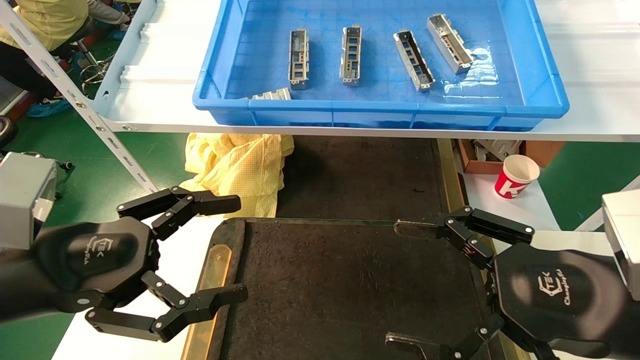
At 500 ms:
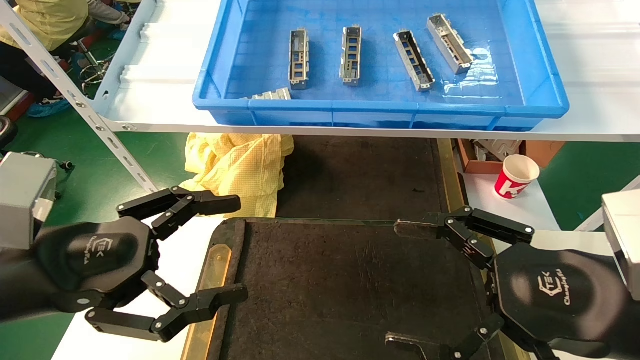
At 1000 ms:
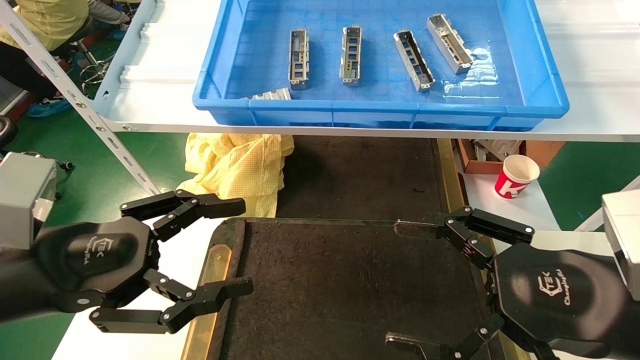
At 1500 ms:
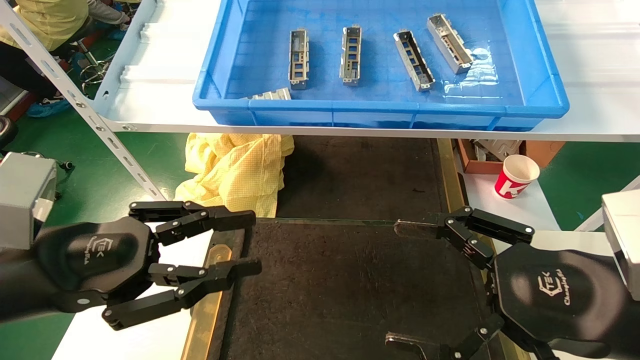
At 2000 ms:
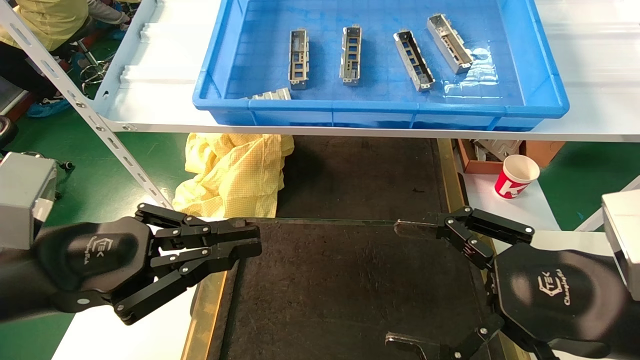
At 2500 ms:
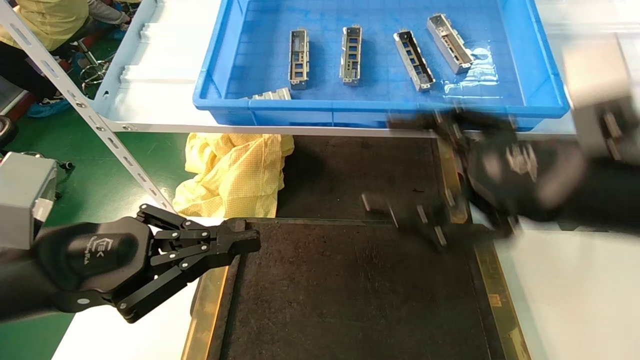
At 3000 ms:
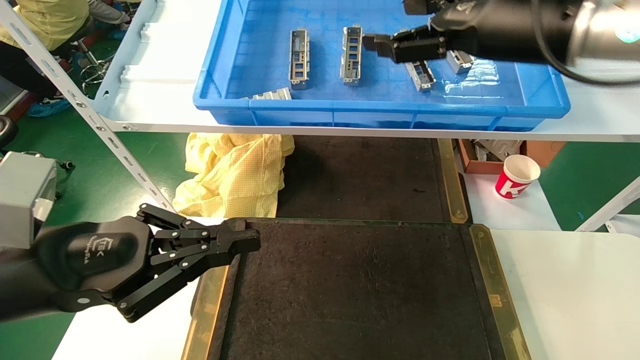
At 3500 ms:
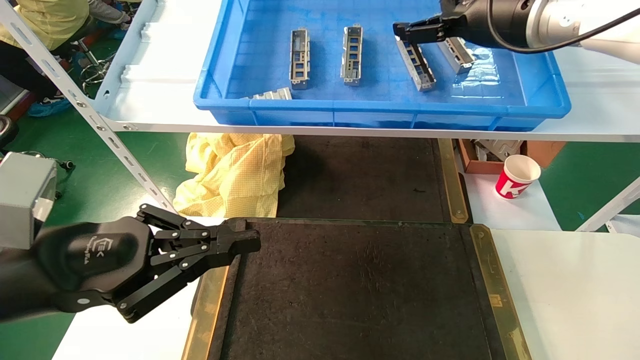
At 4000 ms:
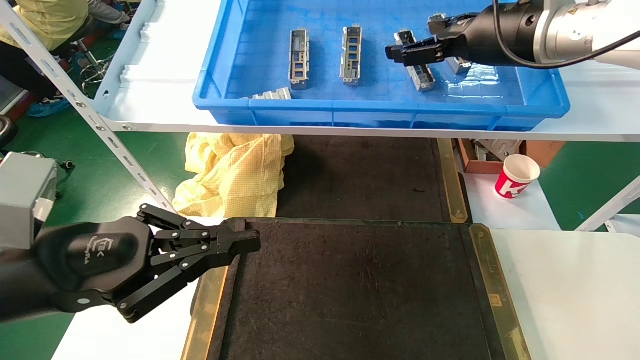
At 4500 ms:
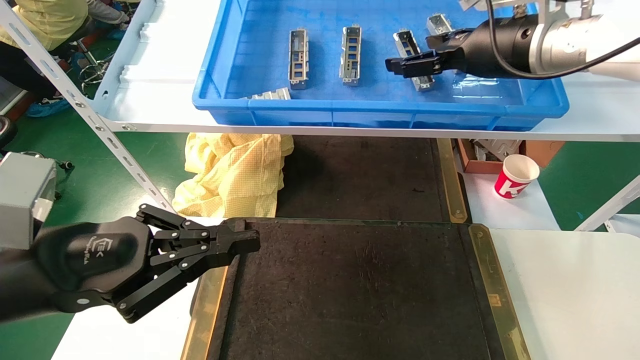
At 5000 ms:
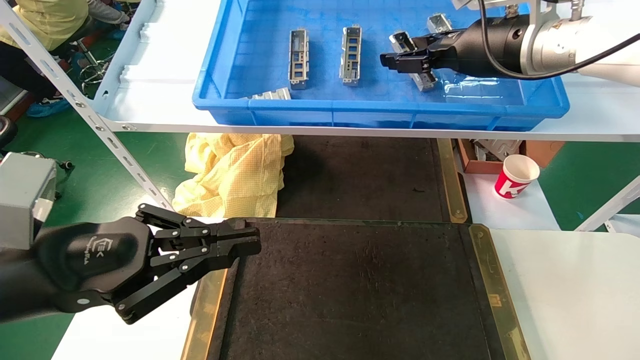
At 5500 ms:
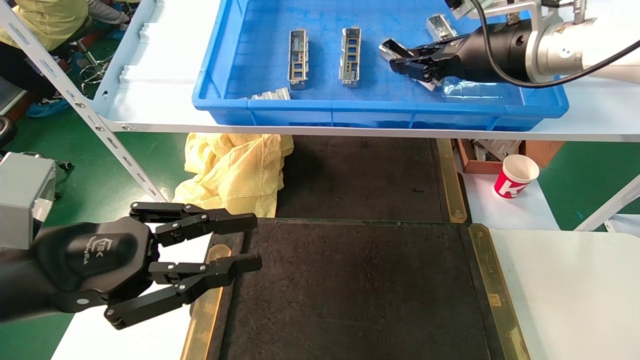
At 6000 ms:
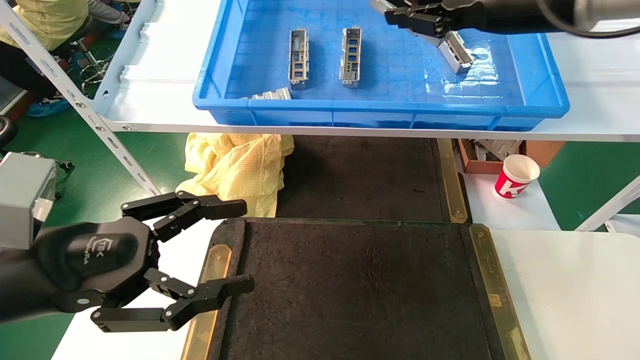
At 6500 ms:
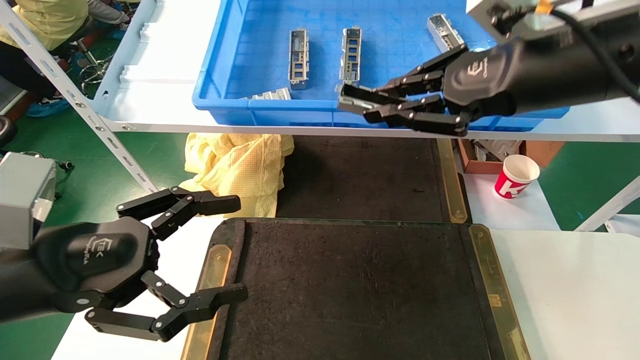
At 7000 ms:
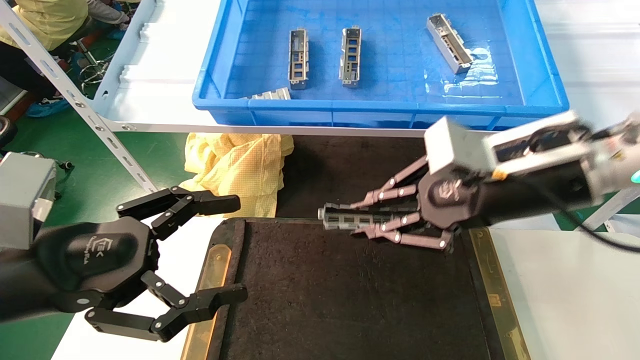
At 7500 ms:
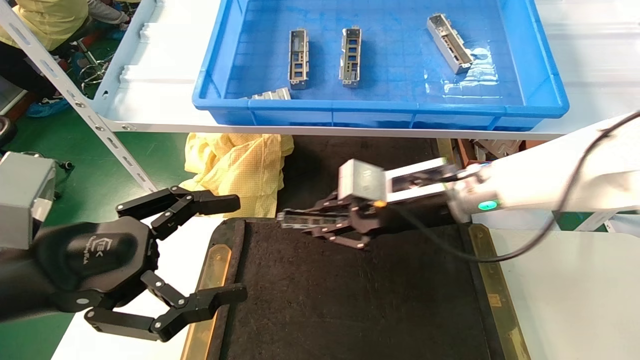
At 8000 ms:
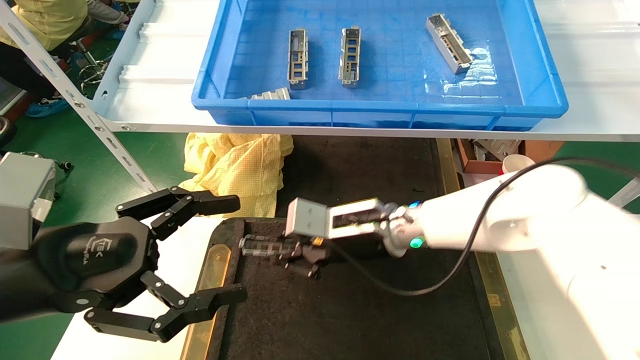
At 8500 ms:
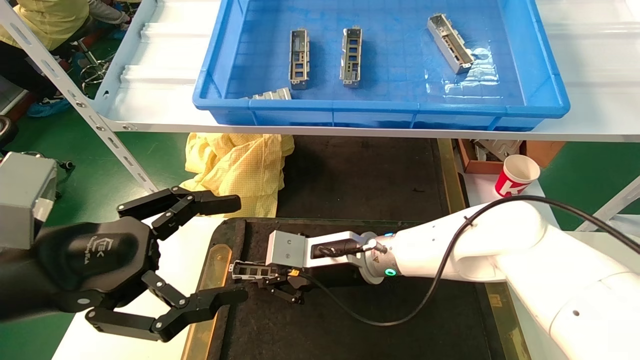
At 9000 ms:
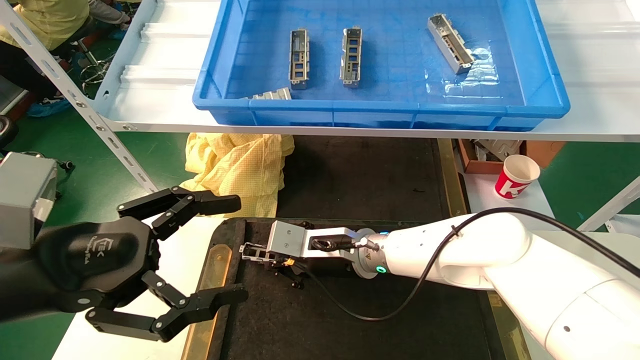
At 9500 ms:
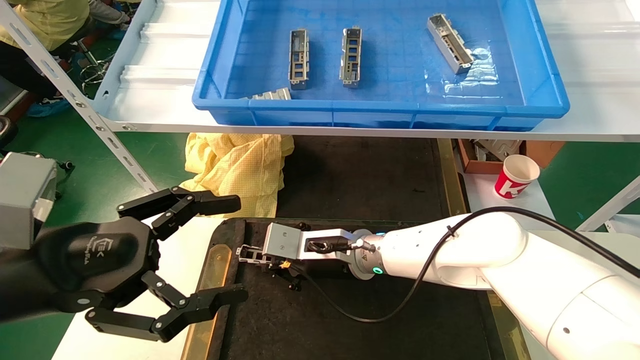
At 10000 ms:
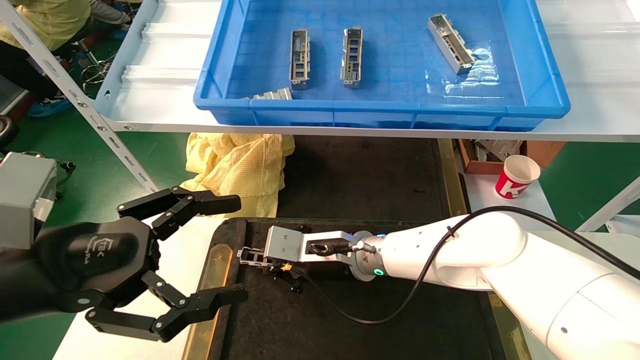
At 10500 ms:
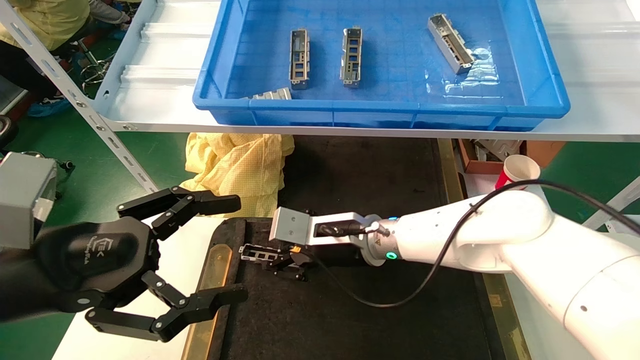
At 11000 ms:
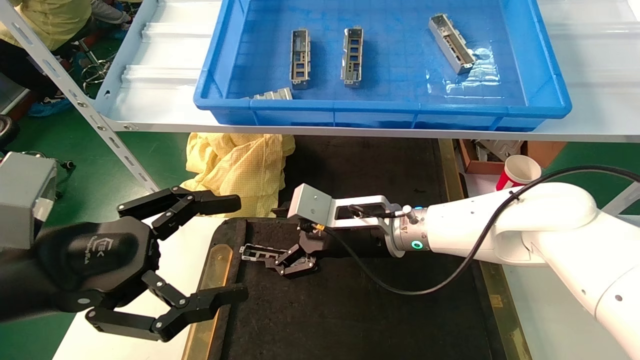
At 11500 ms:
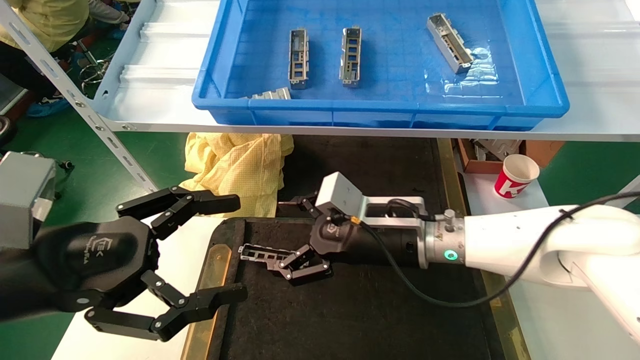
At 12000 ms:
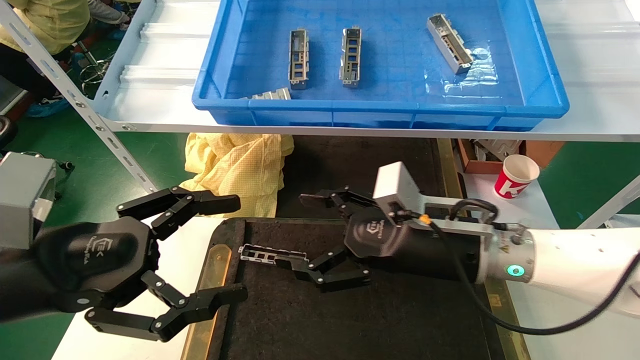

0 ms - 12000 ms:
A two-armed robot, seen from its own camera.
Task of the whole recording: grasp the part and place them on the black container.
Step, 3000 ms - 6000 ms: Pick up and lift the front USB bracket from the feeding area.
Step, 6500 ms - 10500 ms: Place the front USB bracket into the box.
0 ms - 2000 ms: The left gripper closes its fingers.
2000 ms - 4000 ms: The right gripper travels forward and upward by some 30 cm.
4000 ms - 6000 ms: The left gripper opens up. Meanwhile the right gripper heads backward, covering approximately 5 cm, and closes.
6000 ms - 8000 ms: The right gripper is displaced downward and to the left by some 30 cm.
8000 ms - 10000 ms: The right gripper shifts by about 5 cm.
10000 ms - 12000 ms: The right gripper goes about 15 cm to the right, backward and upward, and opens its fingers.

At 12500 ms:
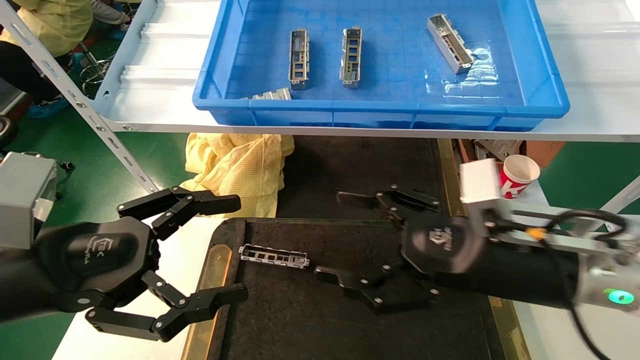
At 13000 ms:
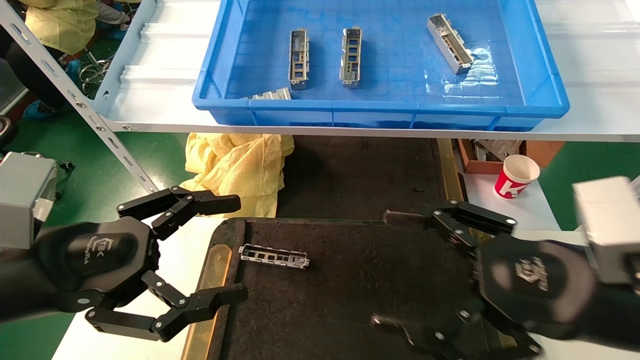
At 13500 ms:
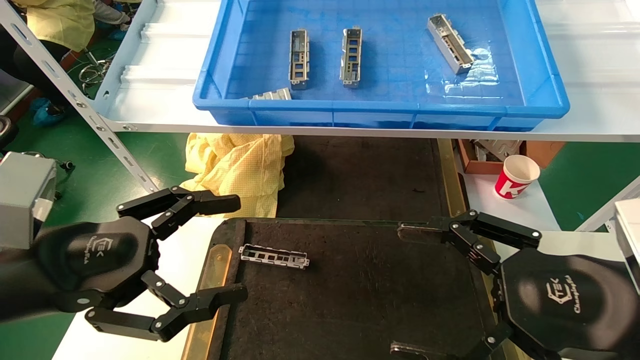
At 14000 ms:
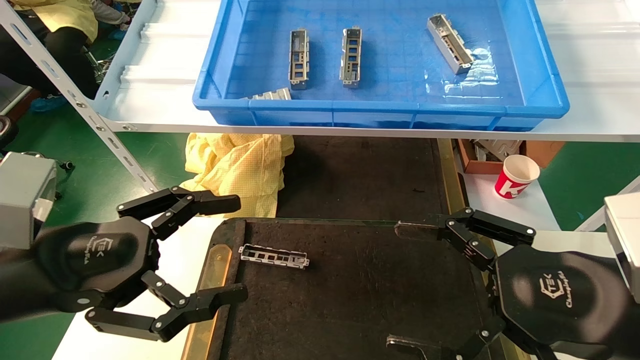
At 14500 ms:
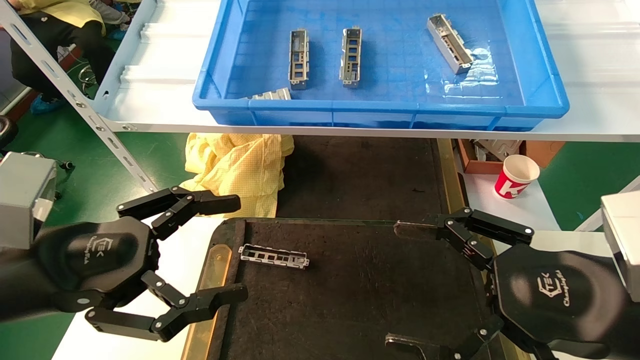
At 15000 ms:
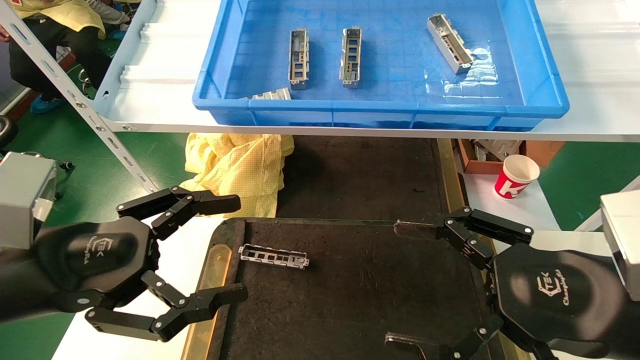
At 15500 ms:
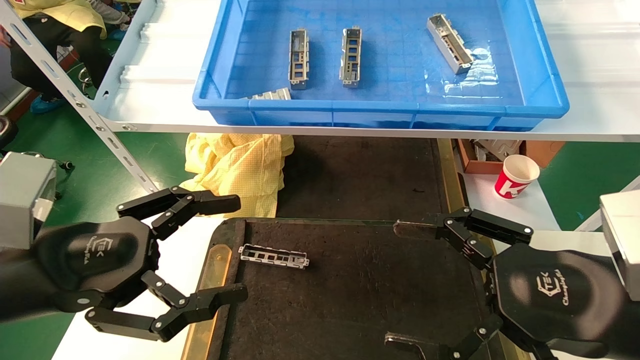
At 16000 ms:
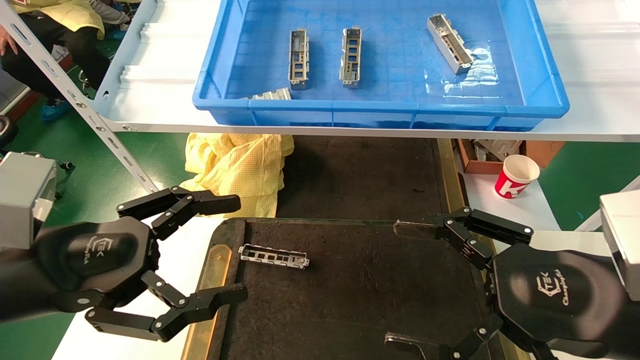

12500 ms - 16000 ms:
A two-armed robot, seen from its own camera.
Task of the whole recording: grasp the part and place them on the black container.
12500 ms - 14500 ms: The right gripper travels backward and to the right by roughly 10 cm.
14500 ms - 16000 ms: The two grippers keep their place.
